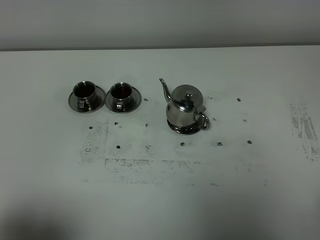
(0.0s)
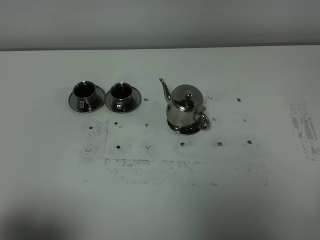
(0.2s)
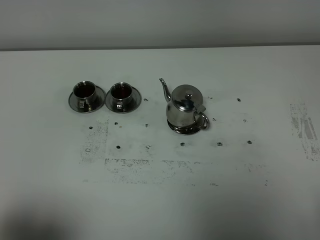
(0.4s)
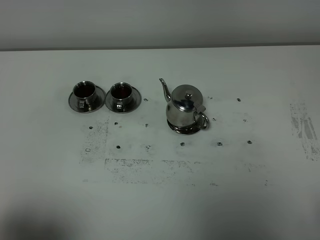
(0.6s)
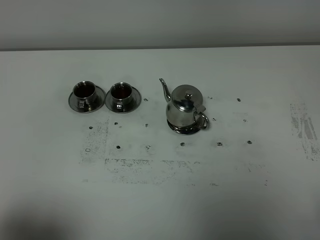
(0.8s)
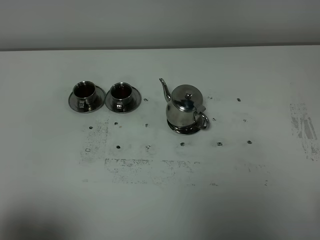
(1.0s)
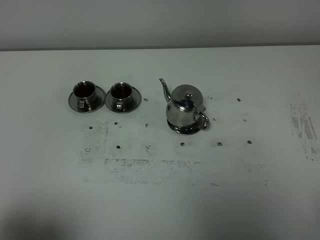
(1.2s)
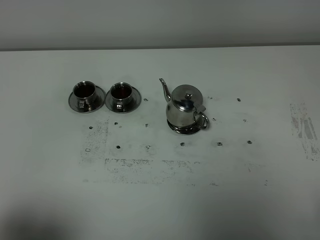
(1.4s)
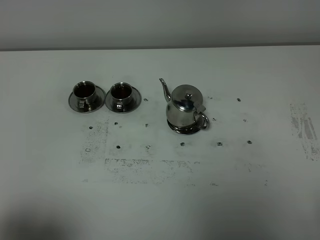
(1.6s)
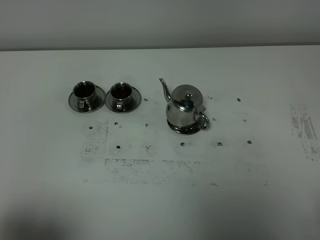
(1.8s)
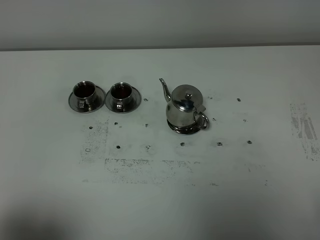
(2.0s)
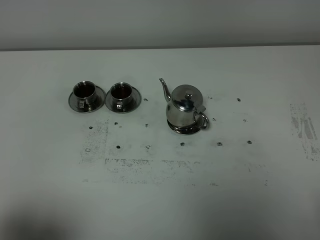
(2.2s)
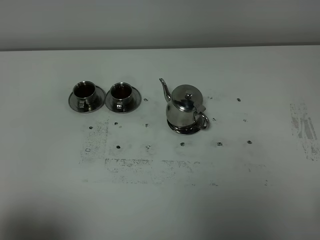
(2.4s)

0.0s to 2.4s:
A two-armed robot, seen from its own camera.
Task of the whole recording: grasp the stainless steel teapot and pour the tea into the two stainless steel teacups one by one, put the stainless steel teapot back in its original place.
1.2s to 2.4s: Neither gripper changes place.
